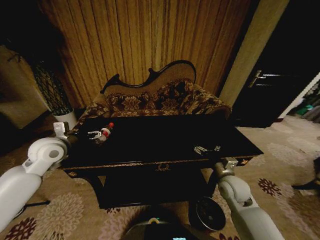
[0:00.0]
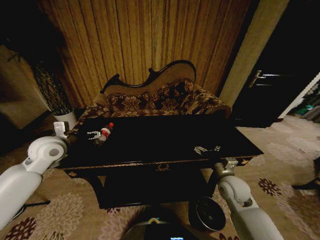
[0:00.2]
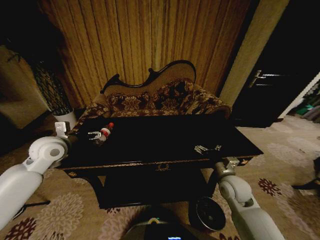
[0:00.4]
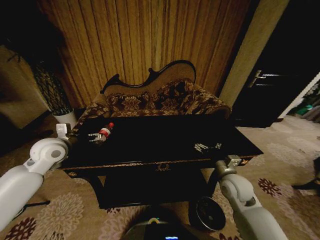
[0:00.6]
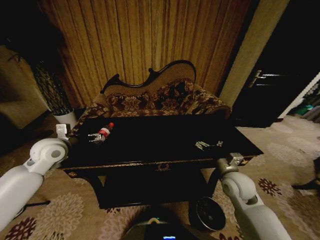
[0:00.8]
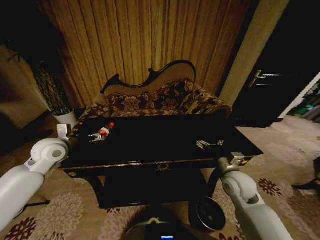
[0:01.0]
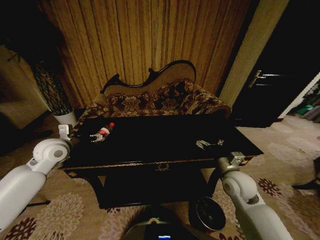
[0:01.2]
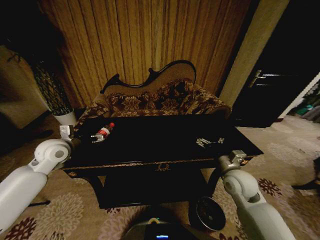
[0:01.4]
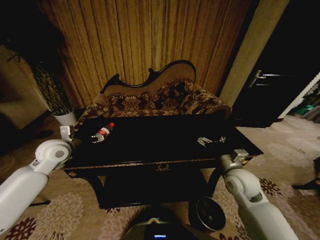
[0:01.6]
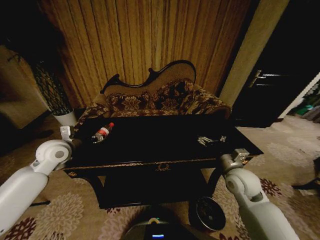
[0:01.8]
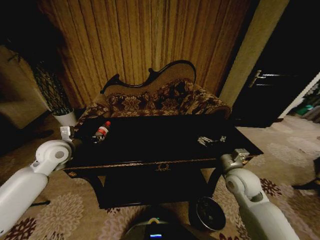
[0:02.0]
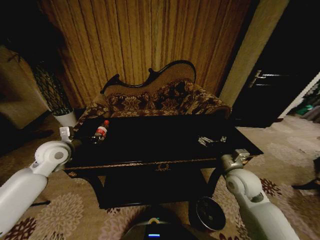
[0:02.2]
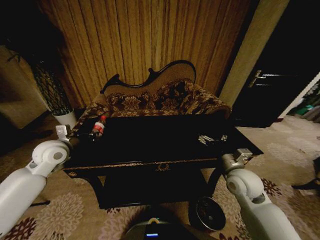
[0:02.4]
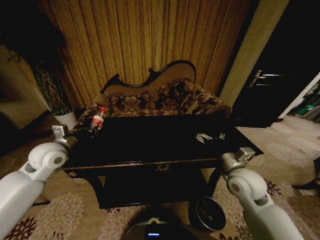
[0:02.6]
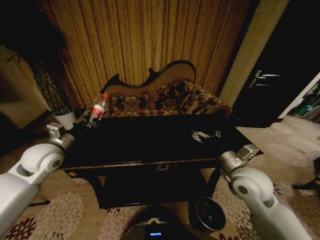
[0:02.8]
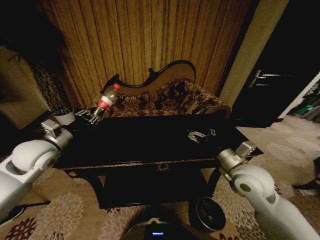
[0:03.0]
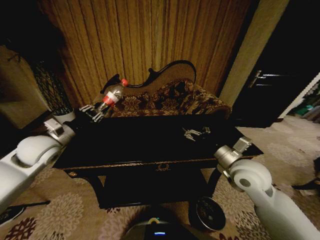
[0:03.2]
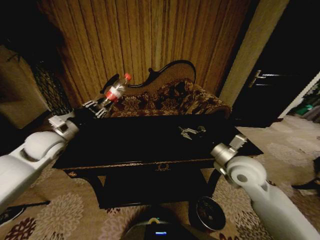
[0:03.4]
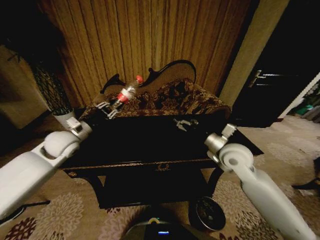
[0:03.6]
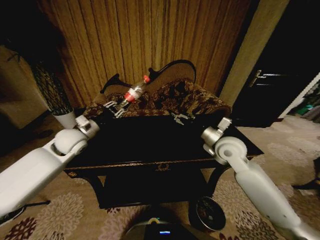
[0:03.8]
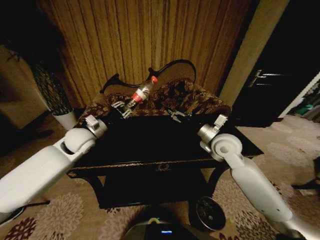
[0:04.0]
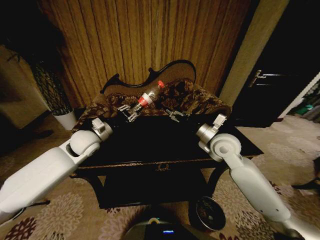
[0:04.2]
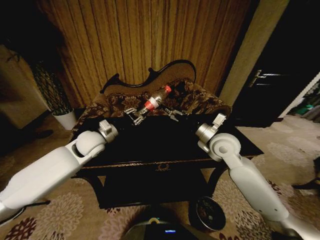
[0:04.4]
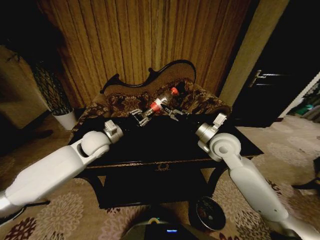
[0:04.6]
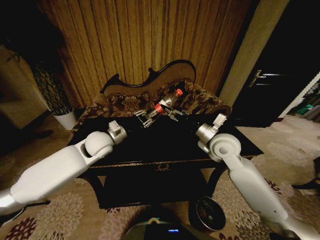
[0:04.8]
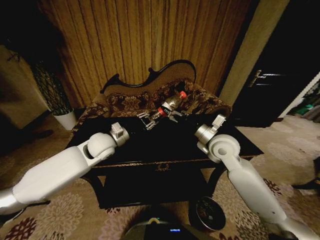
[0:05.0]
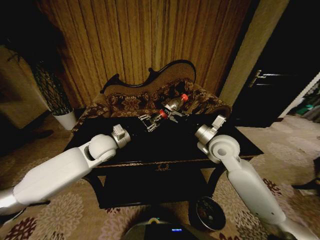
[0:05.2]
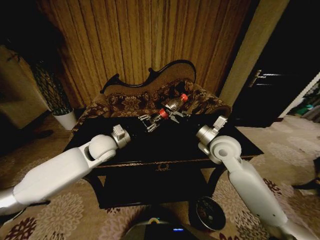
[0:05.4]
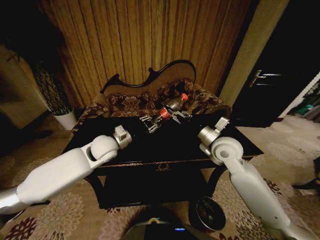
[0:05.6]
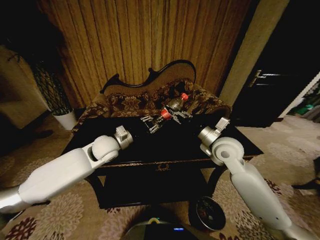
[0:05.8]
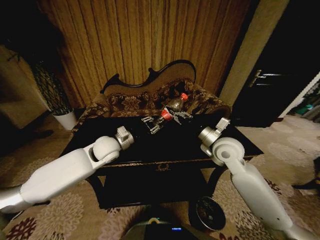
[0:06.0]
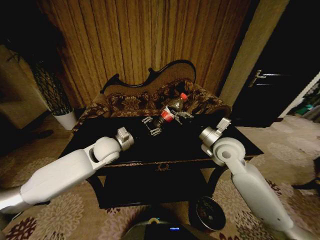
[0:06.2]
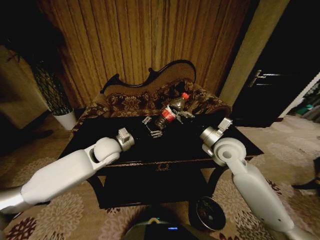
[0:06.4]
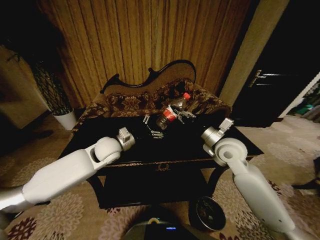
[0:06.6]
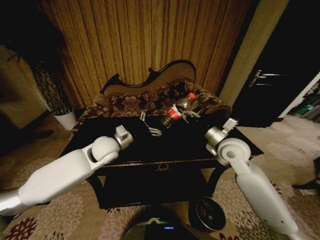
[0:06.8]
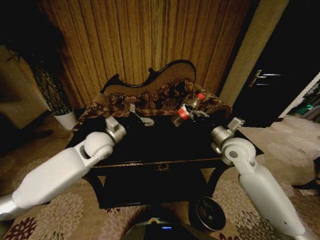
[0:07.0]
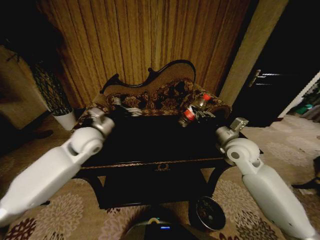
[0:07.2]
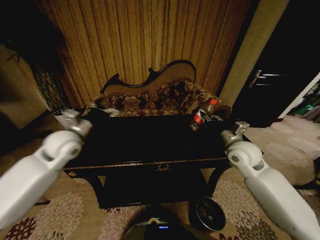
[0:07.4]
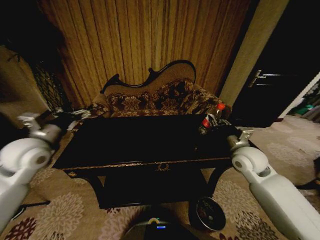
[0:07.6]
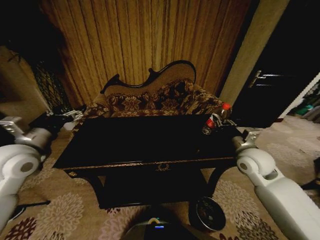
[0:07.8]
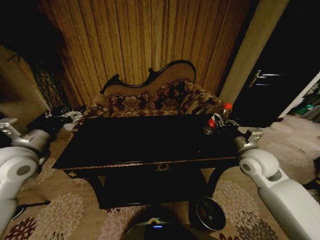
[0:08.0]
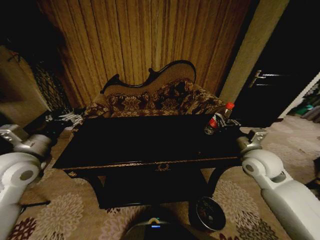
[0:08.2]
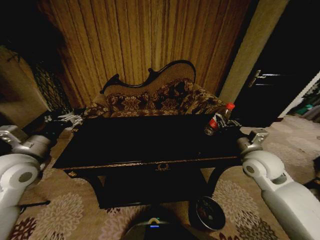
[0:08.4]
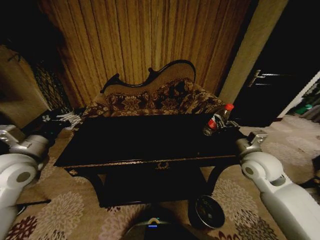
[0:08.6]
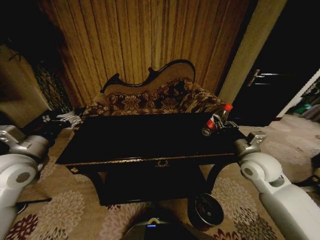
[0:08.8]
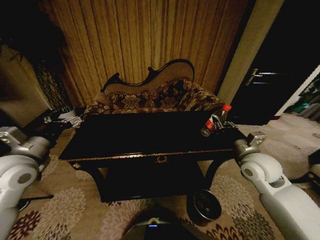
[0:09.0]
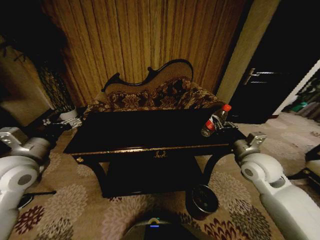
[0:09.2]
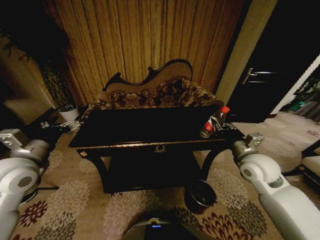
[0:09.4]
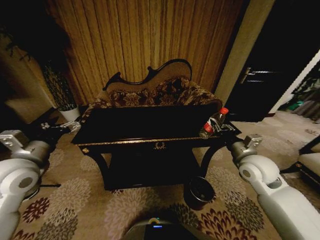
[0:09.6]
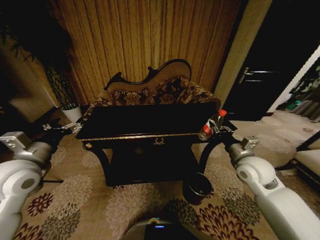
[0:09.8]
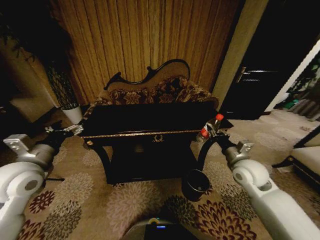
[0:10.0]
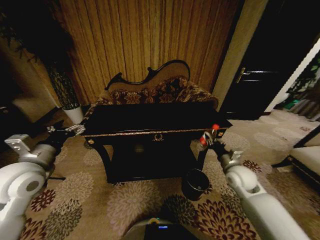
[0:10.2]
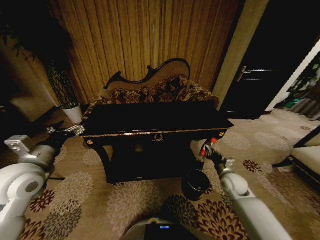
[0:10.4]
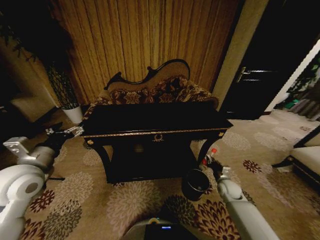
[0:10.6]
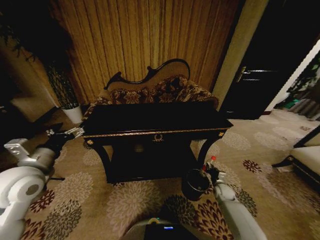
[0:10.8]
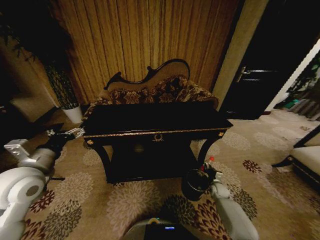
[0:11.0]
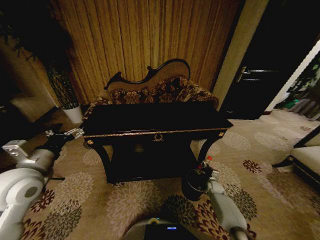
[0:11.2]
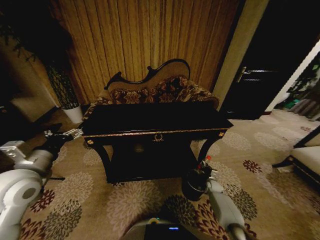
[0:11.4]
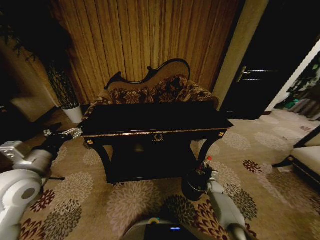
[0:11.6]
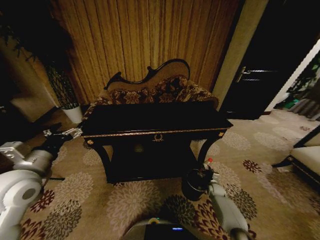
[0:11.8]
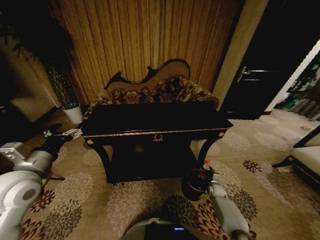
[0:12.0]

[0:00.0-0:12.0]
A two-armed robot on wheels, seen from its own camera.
Task of the whole recording: Move to the front of the table and place the trash on the table into the trash bin.
0:00.0 to 0:01.6: There are only small adjustments of the grippers.
0:01.6 to 0:03.0: The left gripper moves approximately 5 cm, and closes up. The right gripper moves upward, some 5 cm.
0:03.0 to 0:04.4: The left gripper travels to the right and forward by roughly 15 cm. Meanwhile the right gripper goes about 10 cm forward.
0:04.4 to 0:06.0: The right gripper closes its fingers; the left gripper shifts approximately 5 cm to the right.
0:06.0 to 0:07.6: The right gripper shifts some 10 cm to the right. Meanwhile the left gripper heads to the left and upward, covering roughly 20 cm, and opens.
0:07.6 to 0:09.0: The left gripper is displaced backward by approximately 5 cm.
0:09.0 to 0:10.4: The right gripper travels downward by about 20 cm.
0:10.4 to 0:12.0: The right gripper travels downward by approximately 20 cm, and opens up.

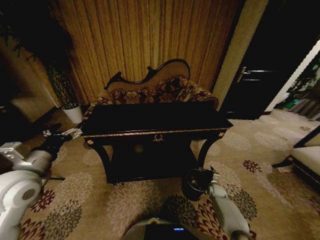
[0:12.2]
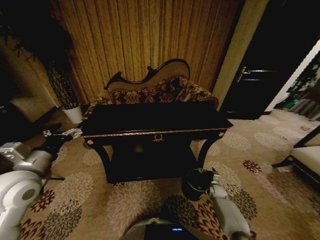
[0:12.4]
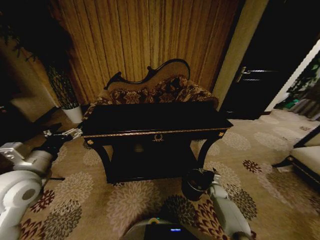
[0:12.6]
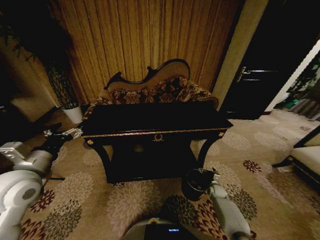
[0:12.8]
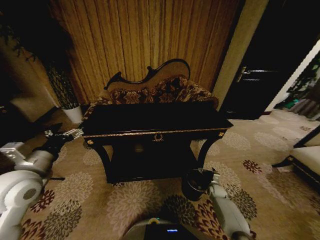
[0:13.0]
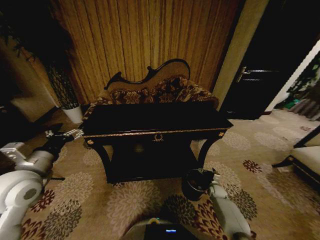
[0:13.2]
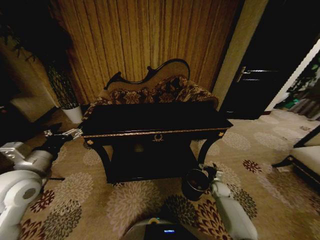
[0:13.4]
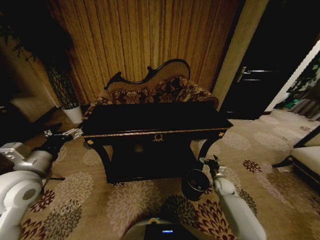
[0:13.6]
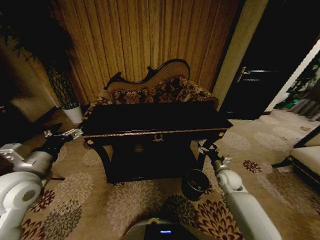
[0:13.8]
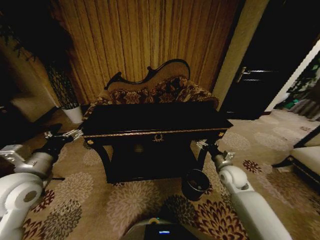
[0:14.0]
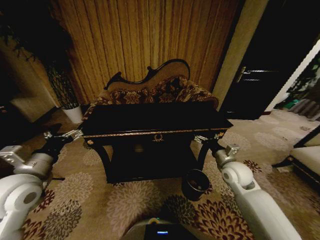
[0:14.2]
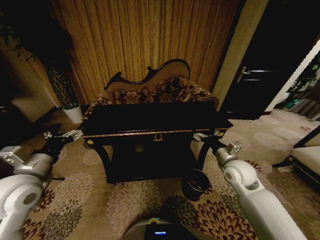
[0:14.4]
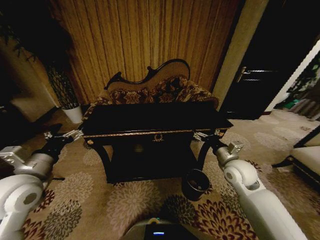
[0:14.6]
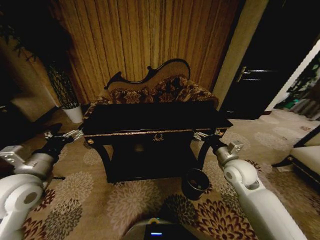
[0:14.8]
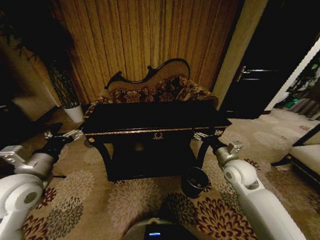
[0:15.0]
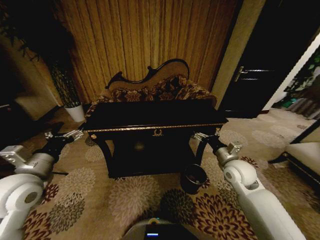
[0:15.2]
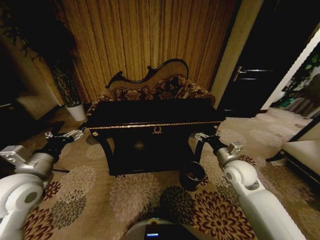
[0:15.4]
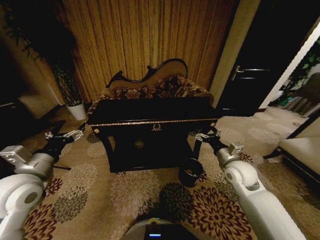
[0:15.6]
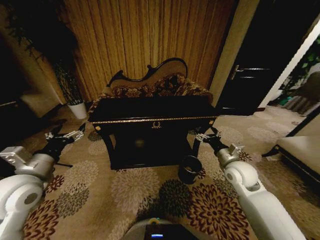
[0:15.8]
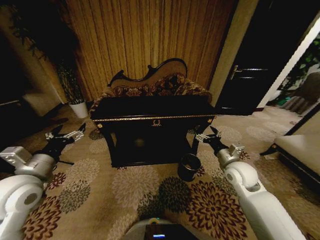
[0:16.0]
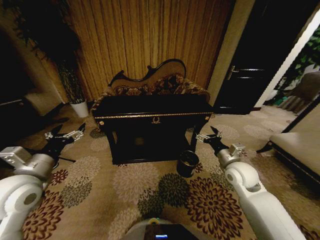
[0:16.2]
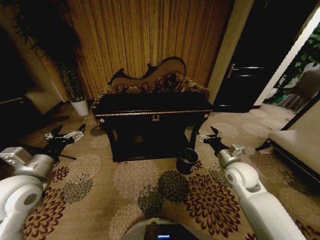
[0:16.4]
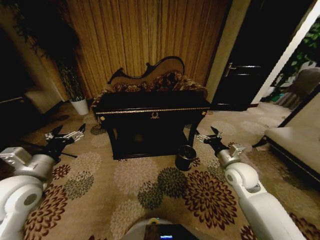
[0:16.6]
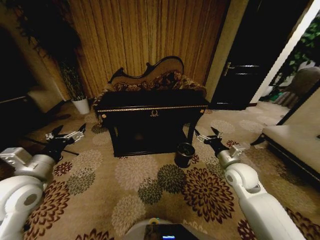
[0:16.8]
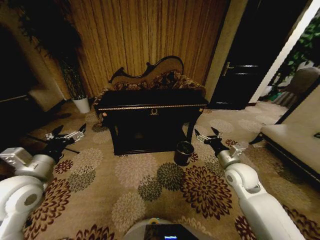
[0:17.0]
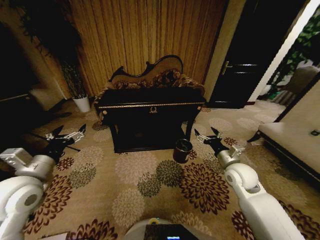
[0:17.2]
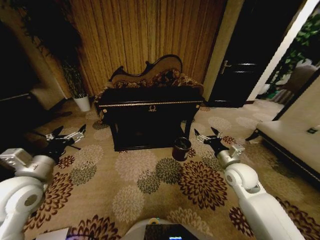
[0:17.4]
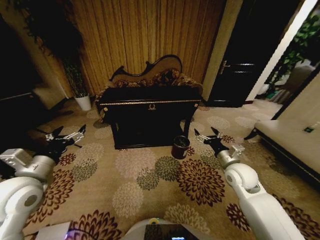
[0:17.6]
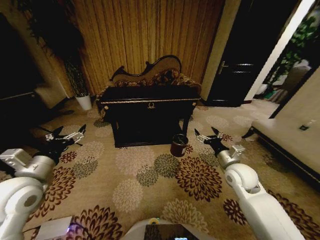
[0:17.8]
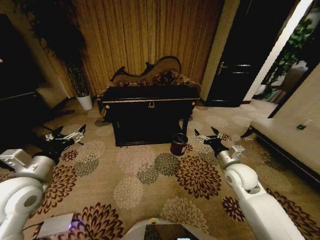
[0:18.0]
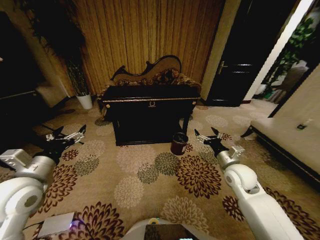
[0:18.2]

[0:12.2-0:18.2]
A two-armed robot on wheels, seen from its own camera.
Task of the whole recording: Move to the front of the table and place the trash on the table into the trash bin.
0:12.2 to 0:13.8: The right gripper goes about 20 cm upward.
0:13.8 to 0:15.2: The right gripper is displaced upward by approximately 15 cm.
